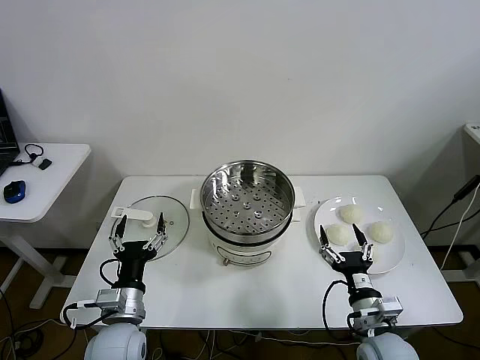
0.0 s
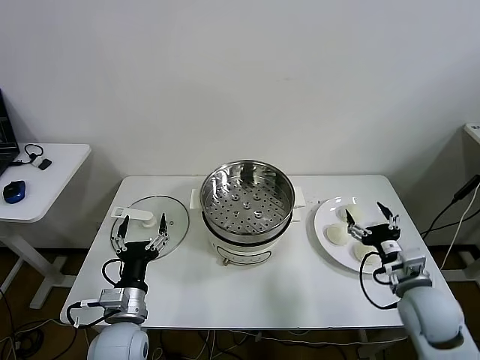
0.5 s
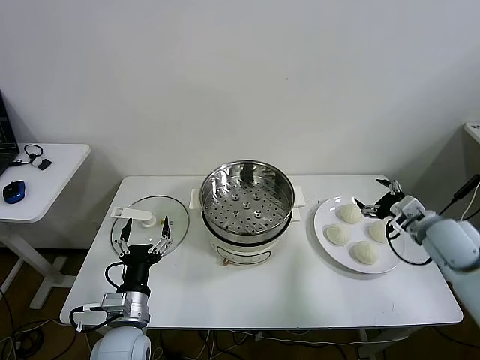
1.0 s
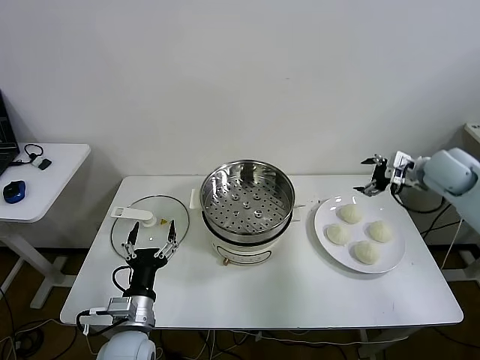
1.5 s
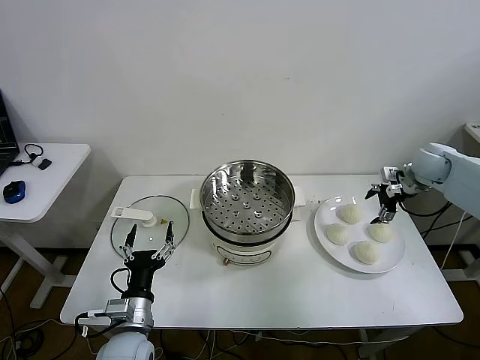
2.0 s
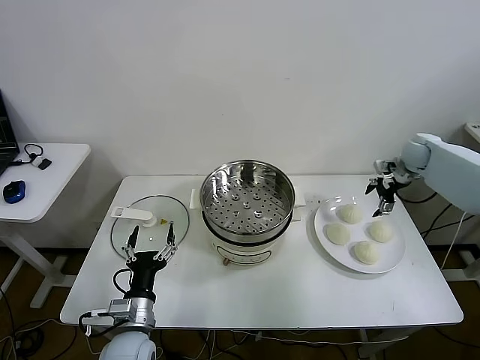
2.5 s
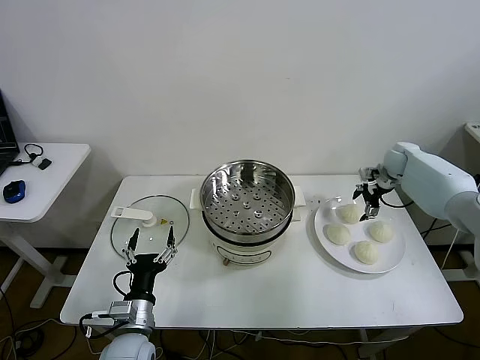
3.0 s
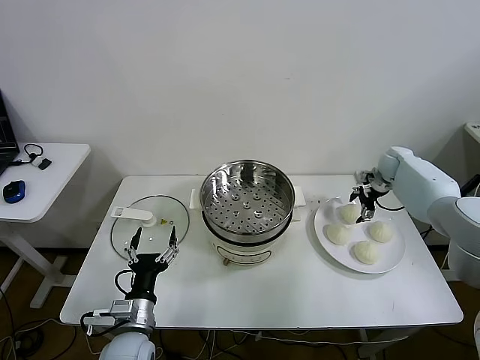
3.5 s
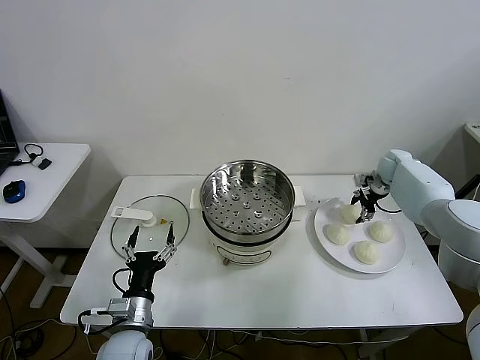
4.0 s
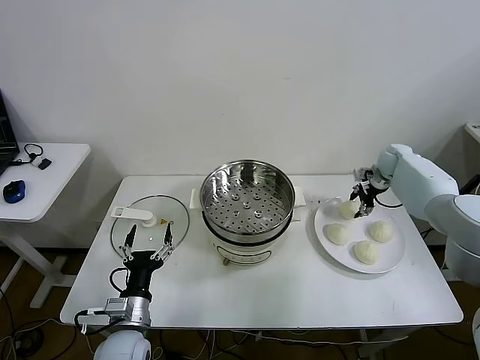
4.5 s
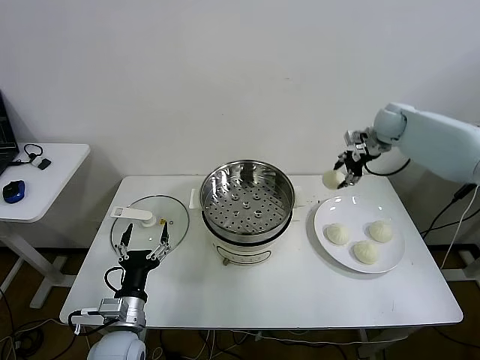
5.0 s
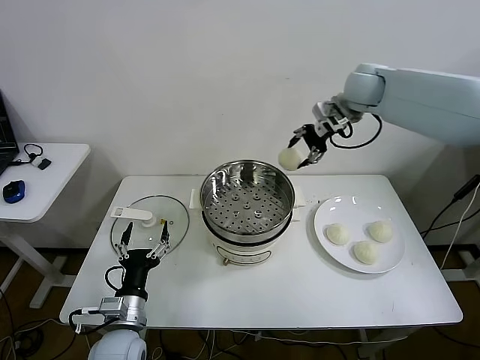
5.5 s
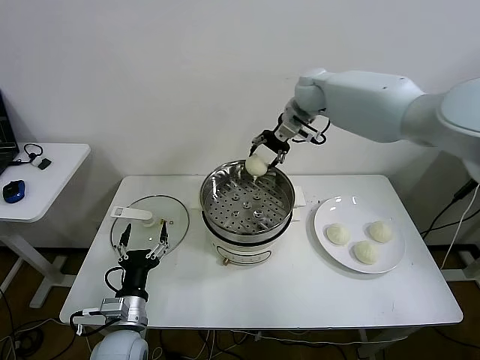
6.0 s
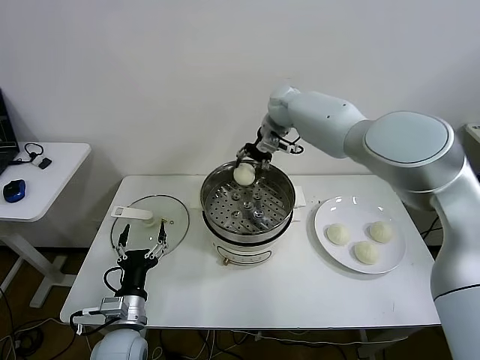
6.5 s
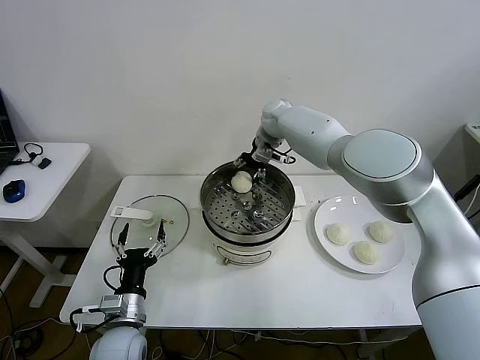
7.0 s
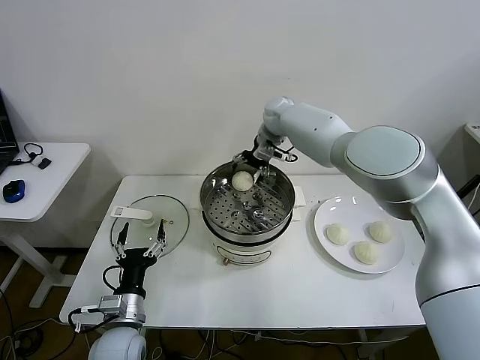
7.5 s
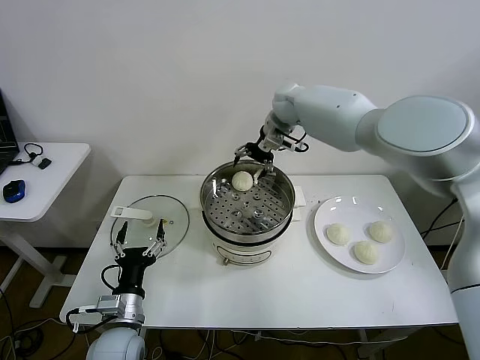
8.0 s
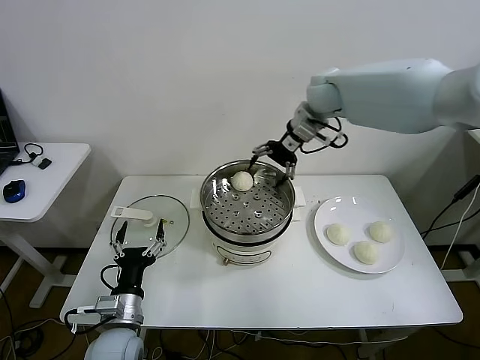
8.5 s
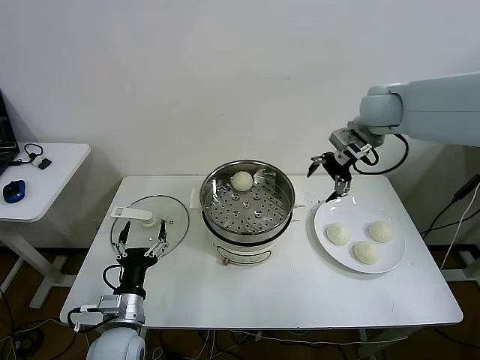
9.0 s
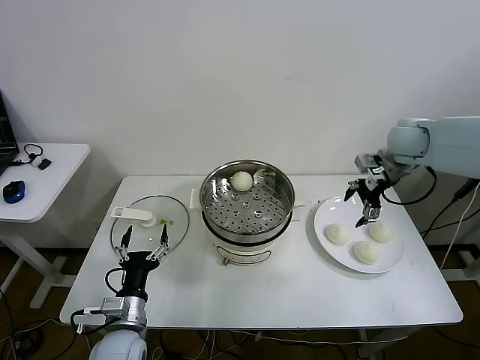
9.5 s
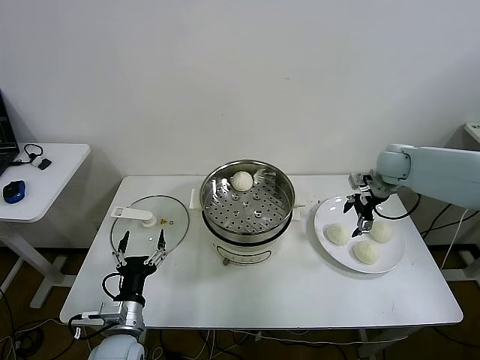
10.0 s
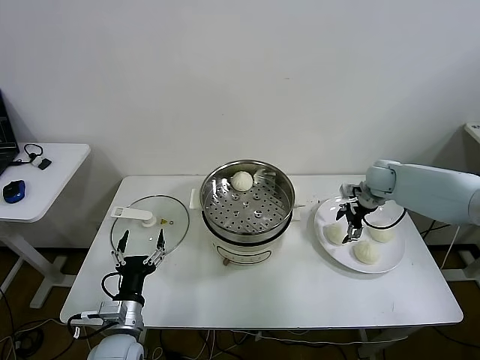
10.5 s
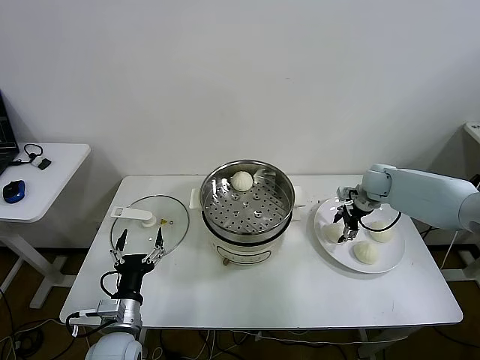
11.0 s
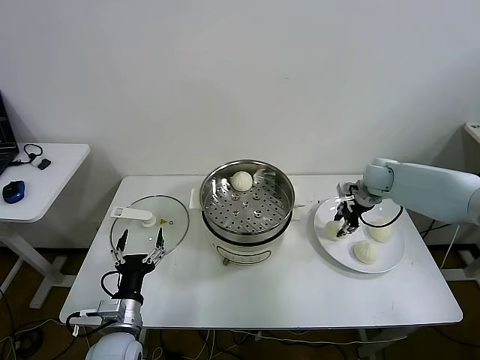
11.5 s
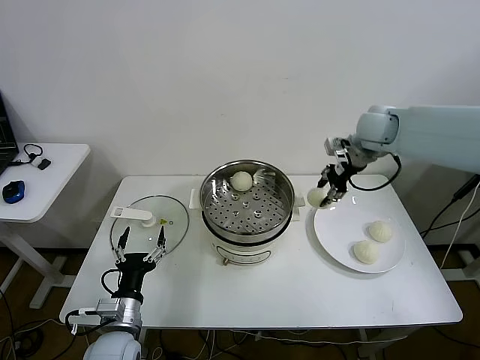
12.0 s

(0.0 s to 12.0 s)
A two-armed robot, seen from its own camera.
Step, 0.0 s - 4.0 s: Grasp the baozi in the plate with right gripper.
Step, 4.5 s - 7.5 s: Place the baozi on the steamer with right gripper.
Step, 8.0 s - 11.0 s: Grasp the baozi in the plate with right gripper.
2.0 s - 4.0 s: The right gripper travels downward and forward by some 10 cm, and closes up.
4.0 s - 6.0 s: The right gripper heads to the left and upward, covering roughly 35 cm.
6.0 s - 8.0 s: The right gripper opens up.
8.0 s - 10.0 s: The right gripper moves to the right, backward and downward, roughly 30 cm.
10.0 s - 12.0 s: The right gripper heads upward and to the left, covering roughly 15 cm, and closes.

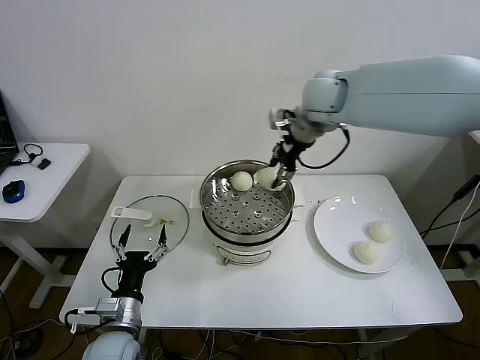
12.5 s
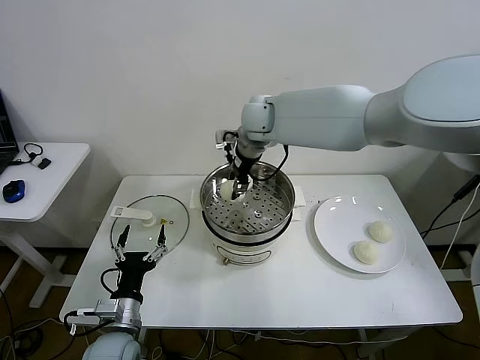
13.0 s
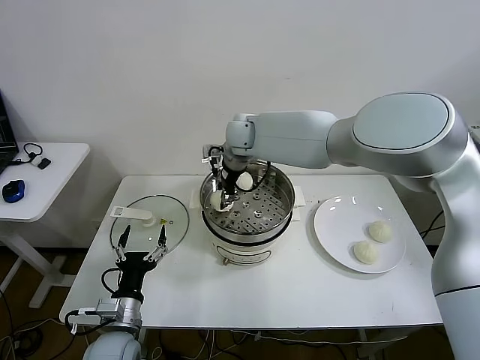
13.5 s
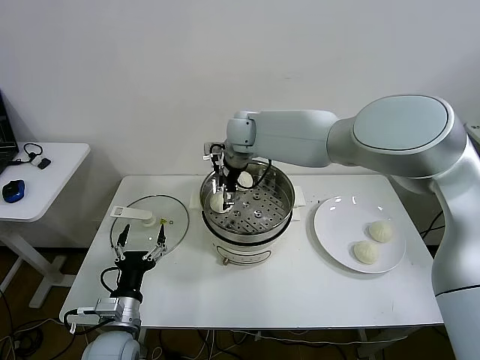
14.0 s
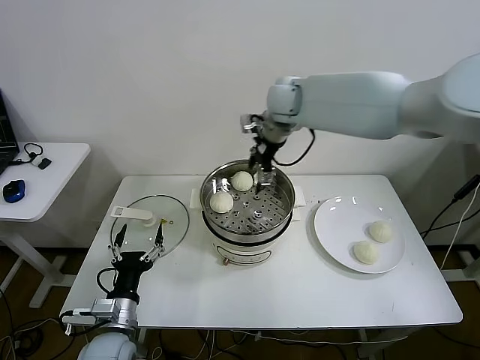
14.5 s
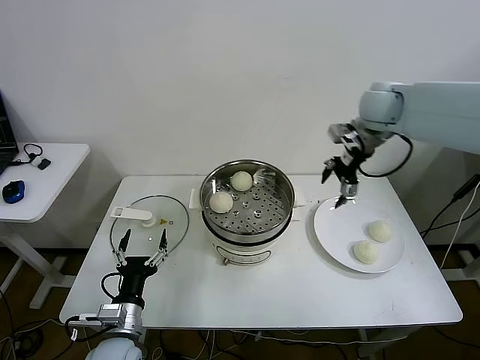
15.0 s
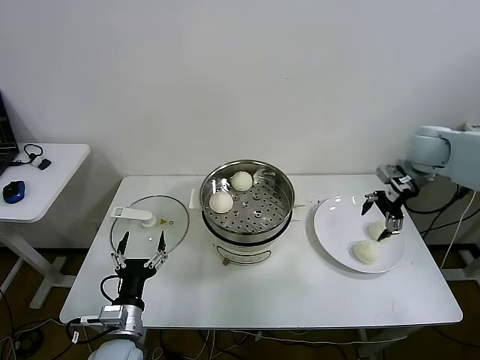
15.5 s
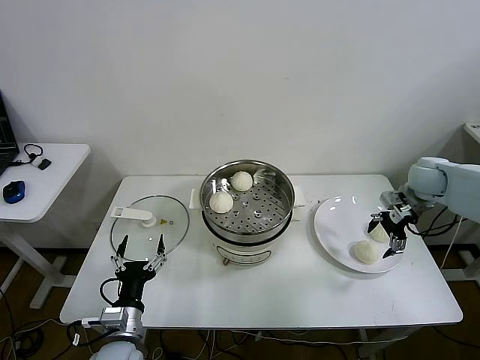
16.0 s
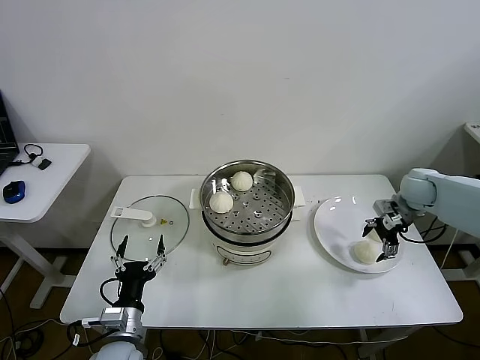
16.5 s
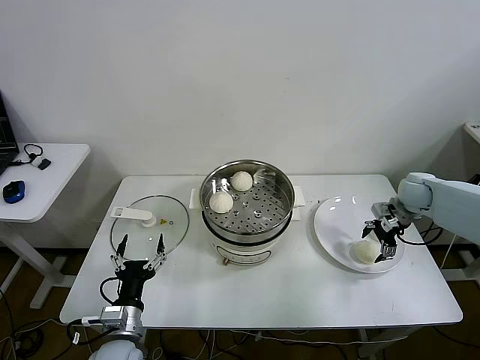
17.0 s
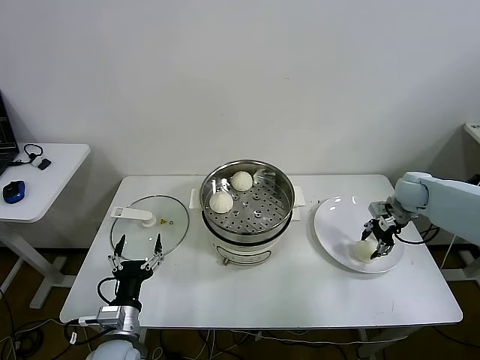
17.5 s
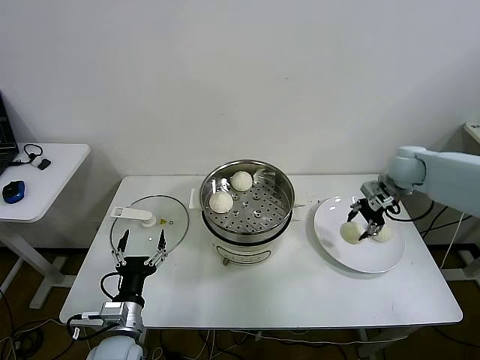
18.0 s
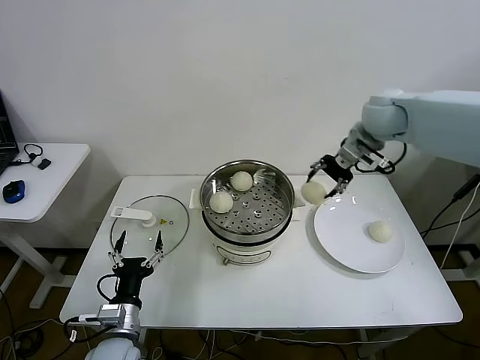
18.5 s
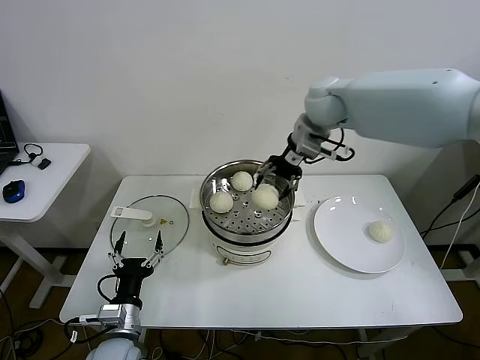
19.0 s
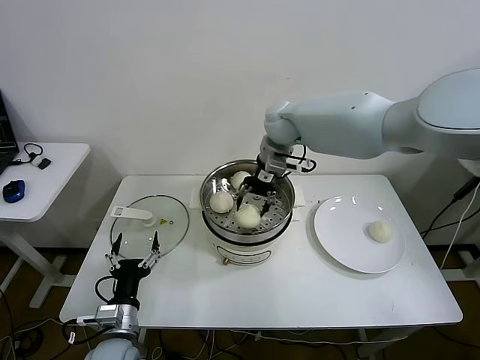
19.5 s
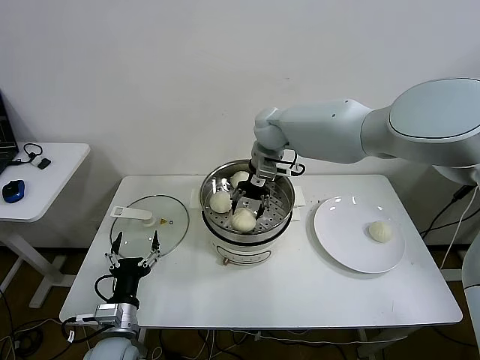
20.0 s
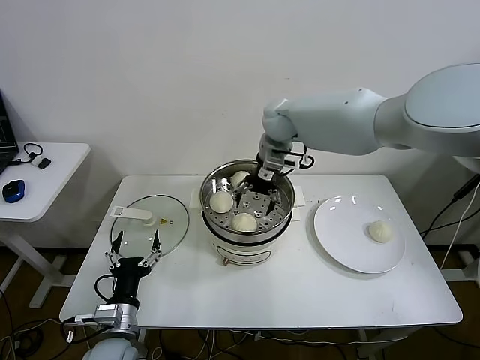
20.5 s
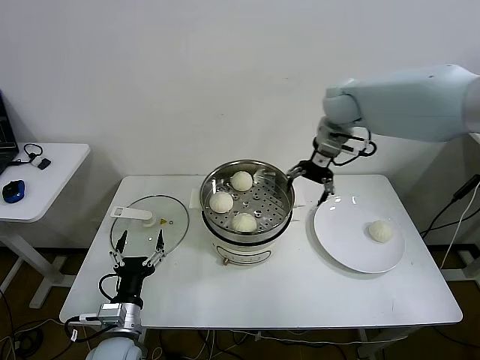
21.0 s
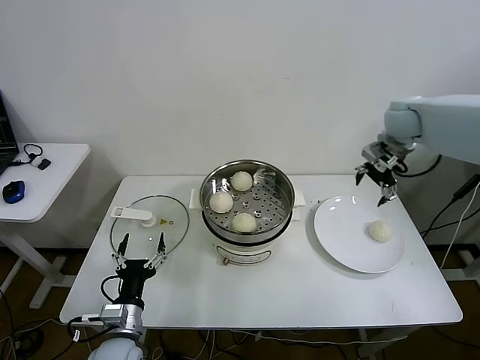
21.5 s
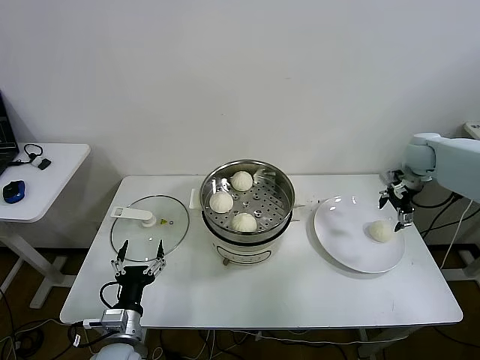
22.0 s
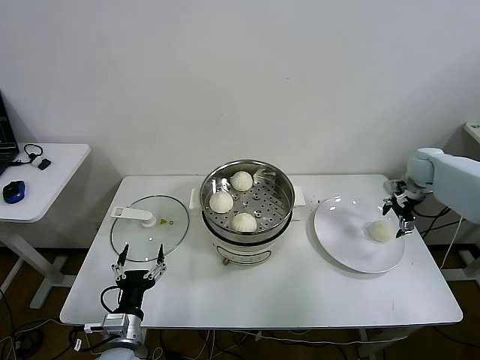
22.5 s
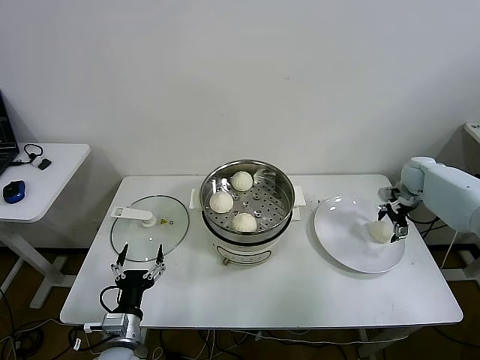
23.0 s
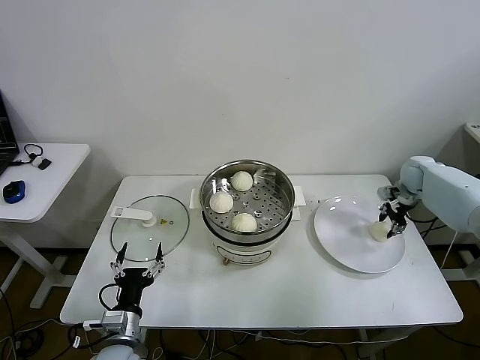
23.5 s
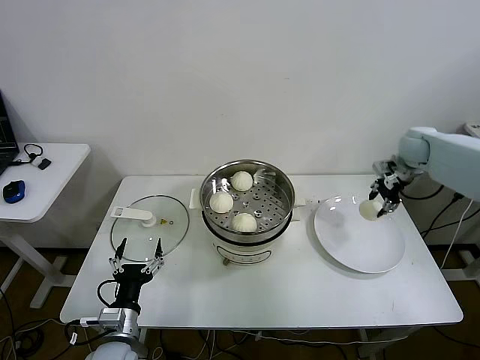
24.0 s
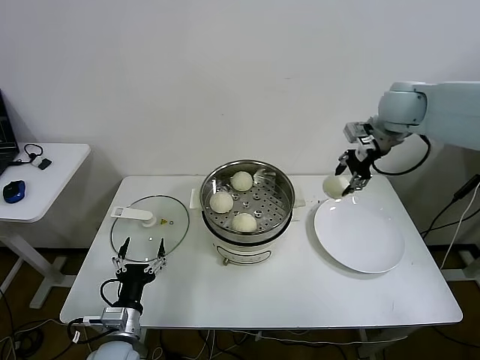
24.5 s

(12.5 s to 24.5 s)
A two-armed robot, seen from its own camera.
Step, 12.5 s - 14.0 s: Place the baozi on the steamer with right gripper.
Step, 14.5 s - 17.5 s: Grasp the baozi in the plate with right gripper.
Step, 18.0 s - 20.0 s: Place the baozi on the steamer with right gripper.
Step, 20.5 s - 23.0 s: Grasp the baozi in the plate with right gripper.
12.5 s - 14.5 s: The right gripper heads to the left, covering about 5 cm, and opens its fingers.
14.5 s - 16.5 s: The right gripper goes about 40 cm to the right and downward.
16.5 s - 18.5 s: The right gripper heads upward and to the left, covering some 25 cm, and closes up.
18.5 s - 20.5 s: The right gripper travels to the left by some 20 cm, and opens up.
20.5 s - 22.5 s: The right gripper is displaced to the right by about 40 cm.
22.5 s - 24.5 s: The right gripper shifts some 25 cm upward and to the left, and closes its fingers.

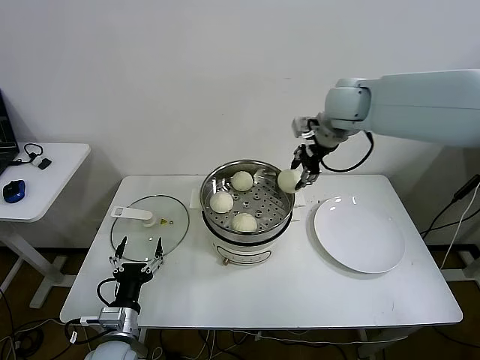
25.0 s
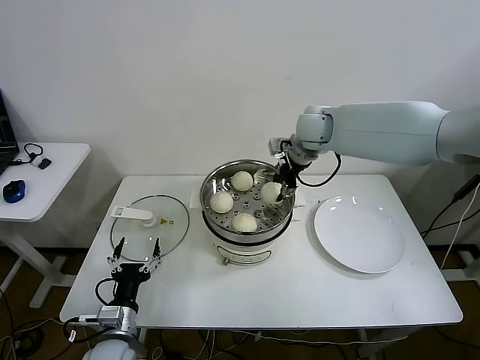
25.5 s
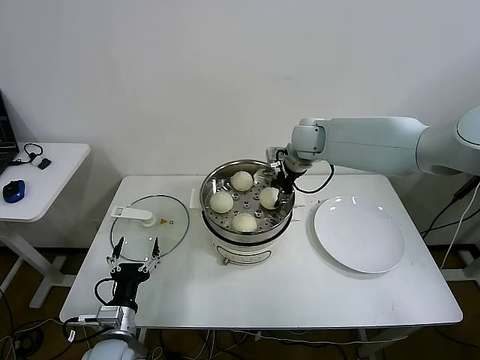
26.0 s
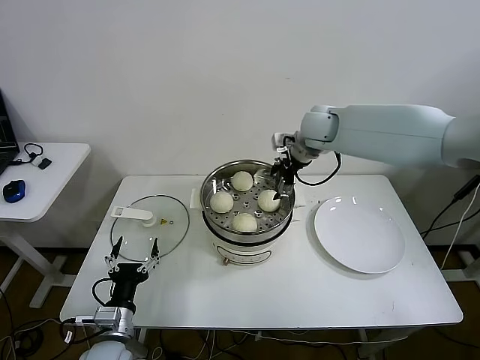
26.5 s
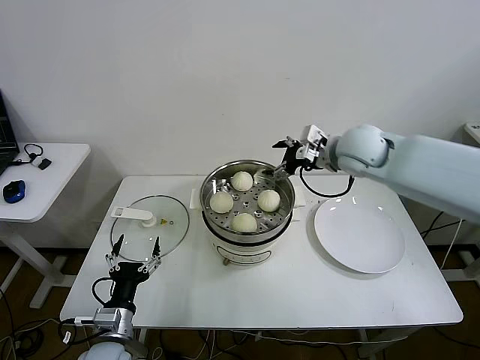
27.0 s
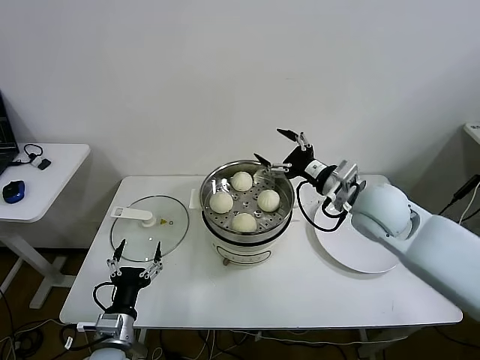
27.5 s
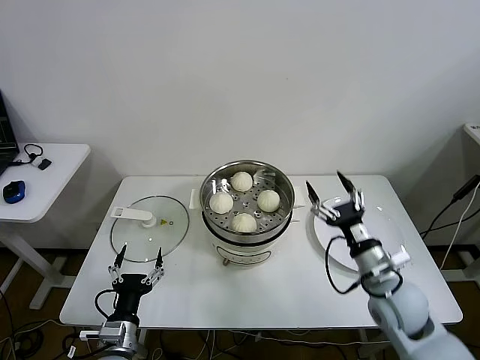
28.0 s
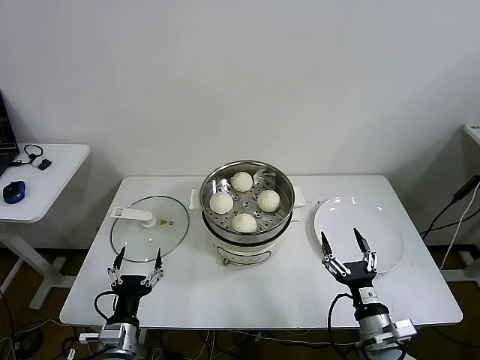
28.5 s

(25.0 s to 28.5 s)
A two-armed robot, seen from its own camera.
25.0 s - 27.0 s: The right gripper moves downward, some 10 cm, and opens its fingers.
27.0 s - 28.5 s: The right gripper is displaced backward and downward by roughly 40 cm.
